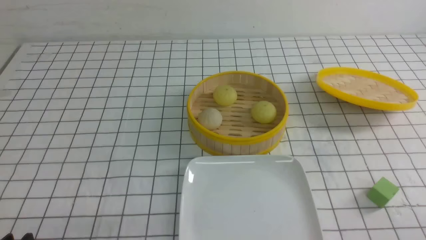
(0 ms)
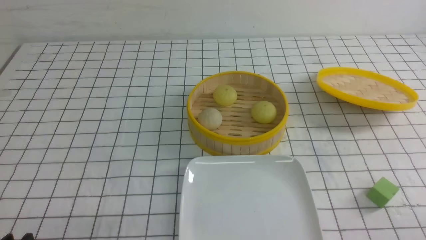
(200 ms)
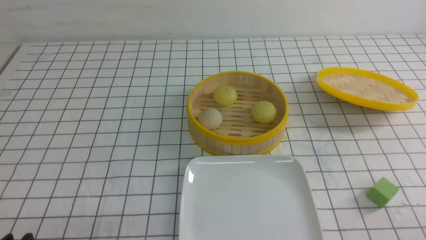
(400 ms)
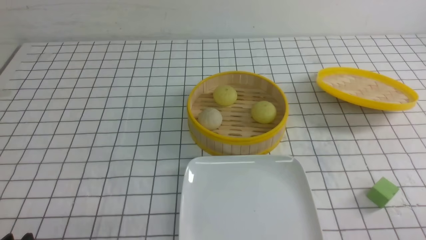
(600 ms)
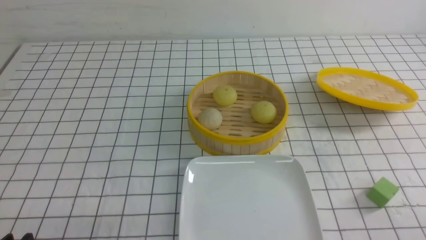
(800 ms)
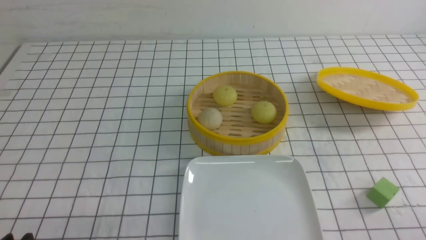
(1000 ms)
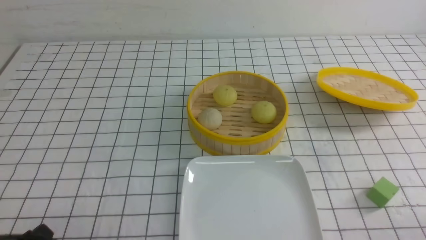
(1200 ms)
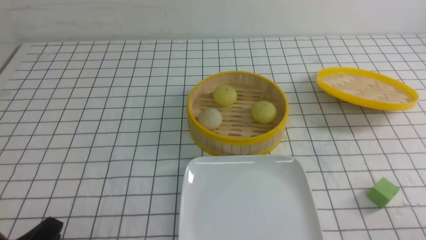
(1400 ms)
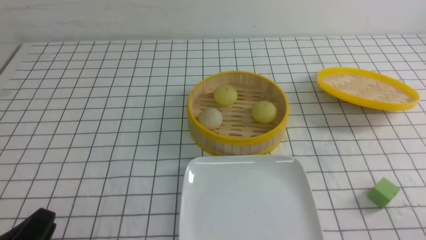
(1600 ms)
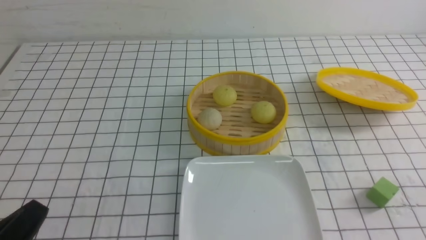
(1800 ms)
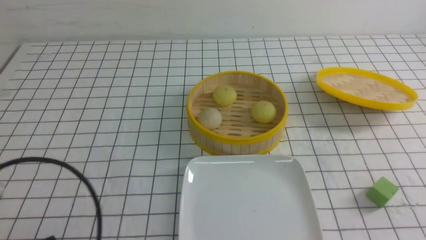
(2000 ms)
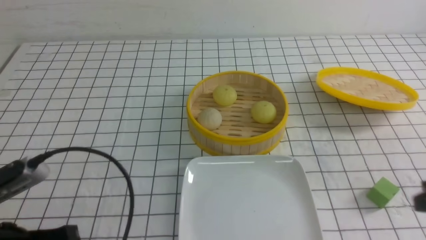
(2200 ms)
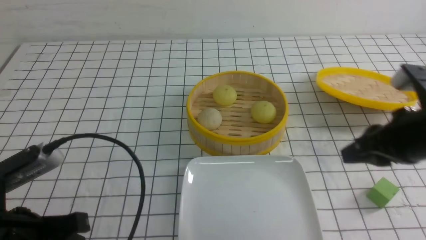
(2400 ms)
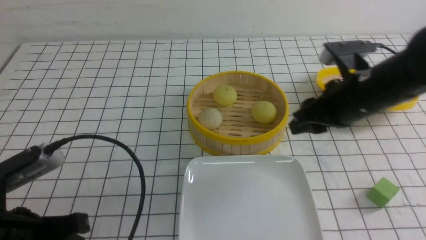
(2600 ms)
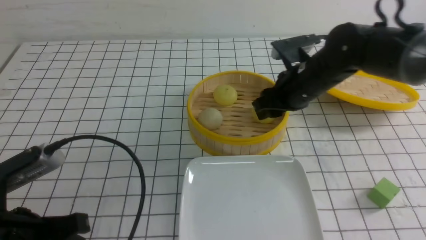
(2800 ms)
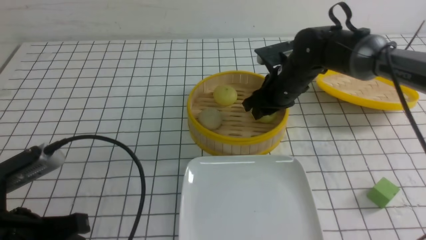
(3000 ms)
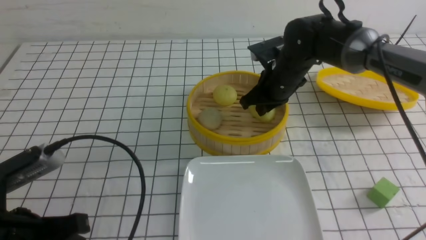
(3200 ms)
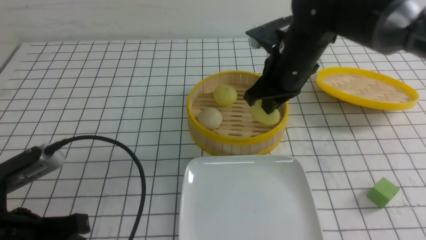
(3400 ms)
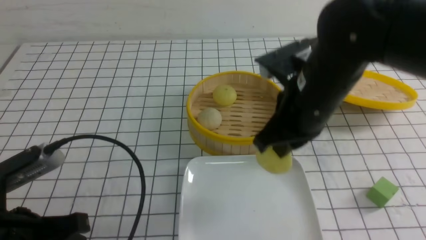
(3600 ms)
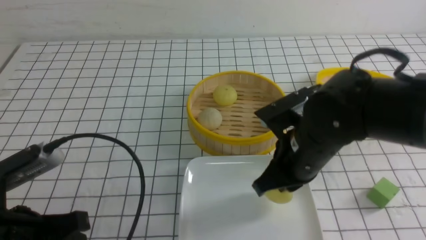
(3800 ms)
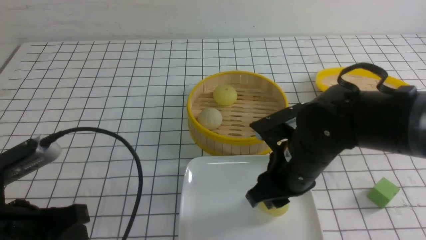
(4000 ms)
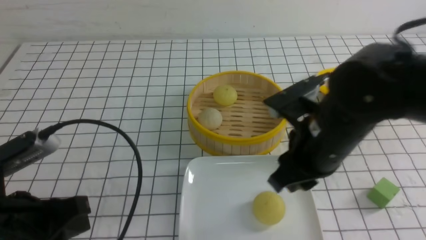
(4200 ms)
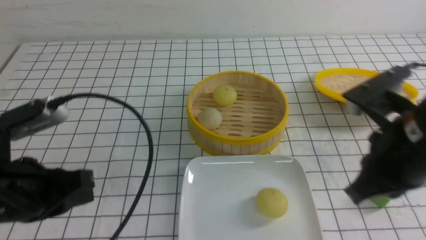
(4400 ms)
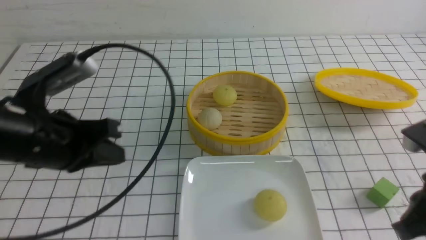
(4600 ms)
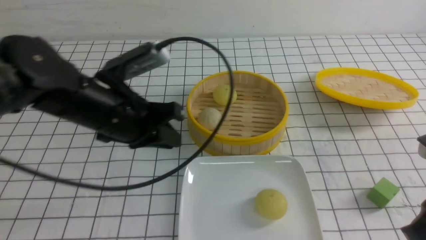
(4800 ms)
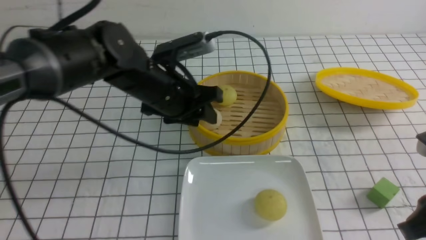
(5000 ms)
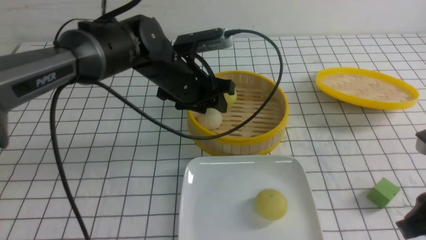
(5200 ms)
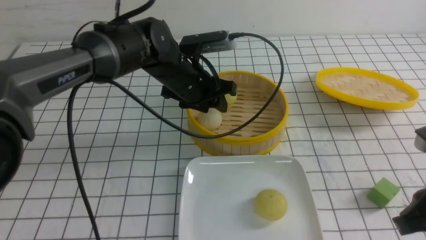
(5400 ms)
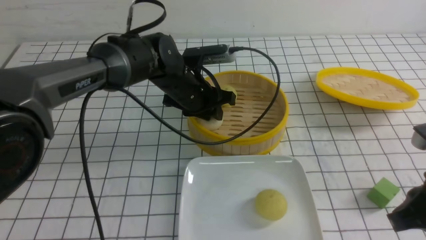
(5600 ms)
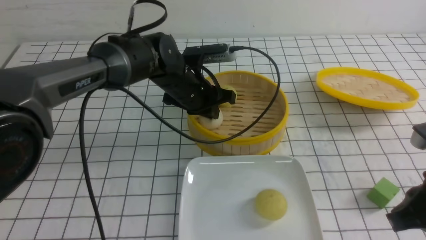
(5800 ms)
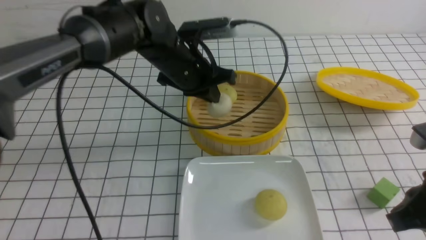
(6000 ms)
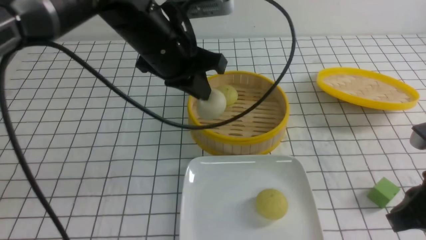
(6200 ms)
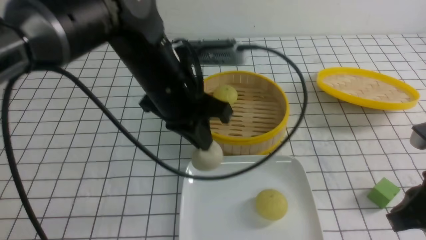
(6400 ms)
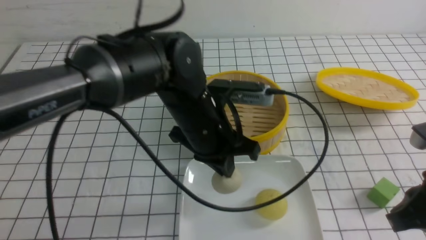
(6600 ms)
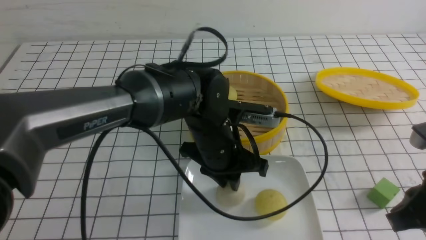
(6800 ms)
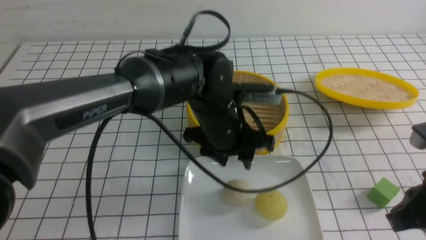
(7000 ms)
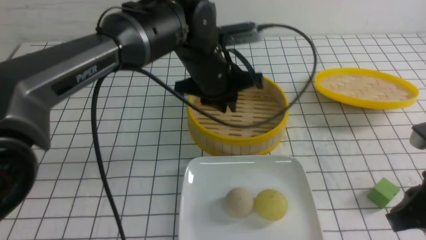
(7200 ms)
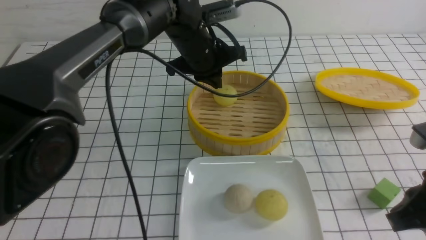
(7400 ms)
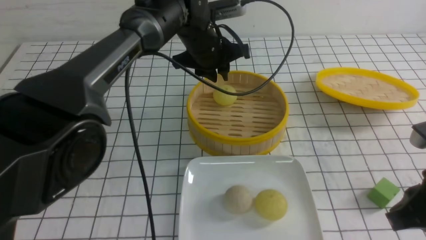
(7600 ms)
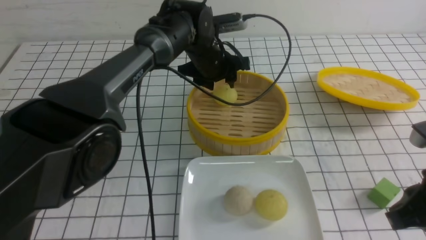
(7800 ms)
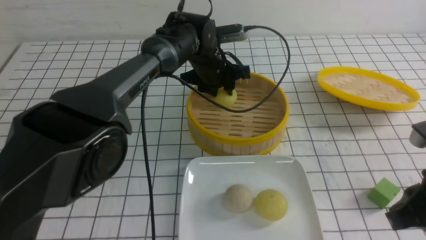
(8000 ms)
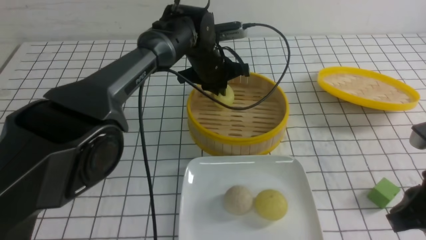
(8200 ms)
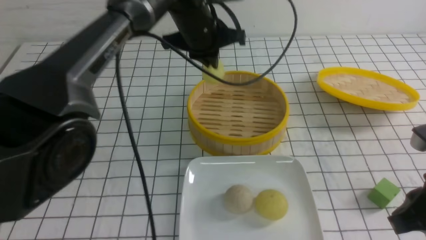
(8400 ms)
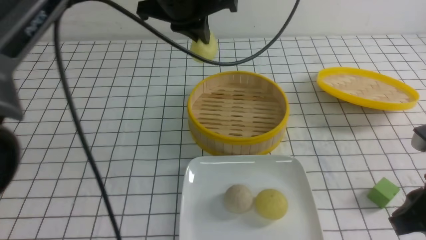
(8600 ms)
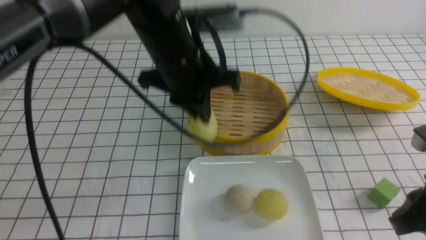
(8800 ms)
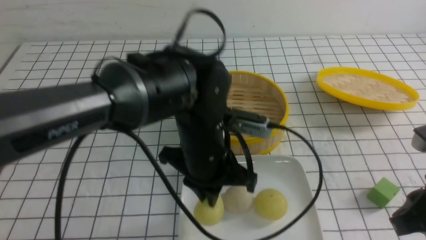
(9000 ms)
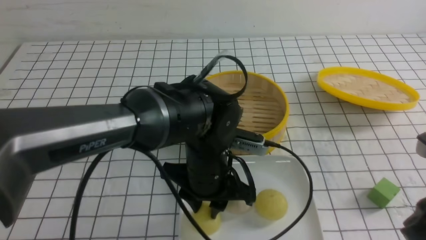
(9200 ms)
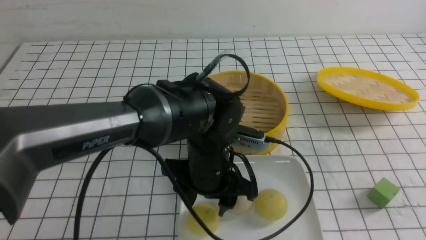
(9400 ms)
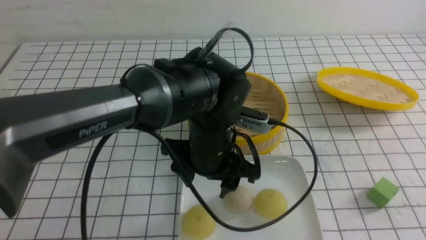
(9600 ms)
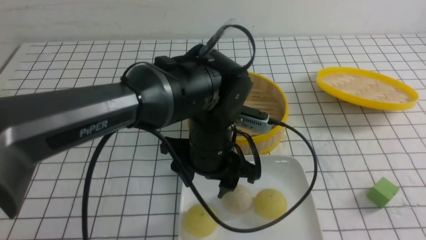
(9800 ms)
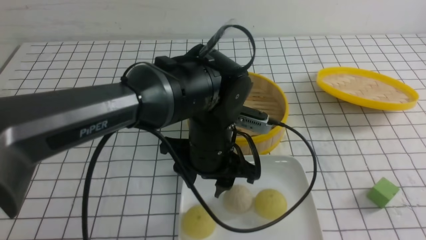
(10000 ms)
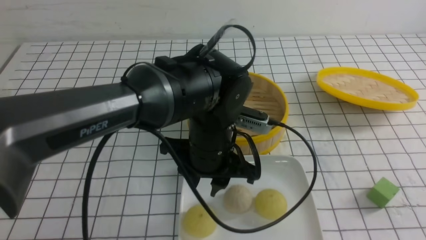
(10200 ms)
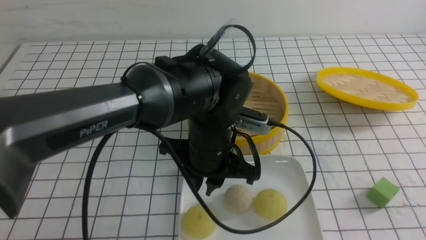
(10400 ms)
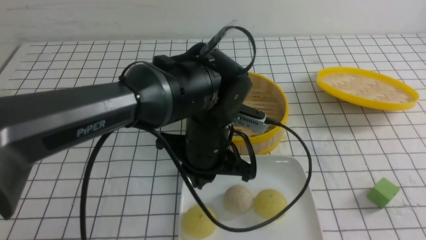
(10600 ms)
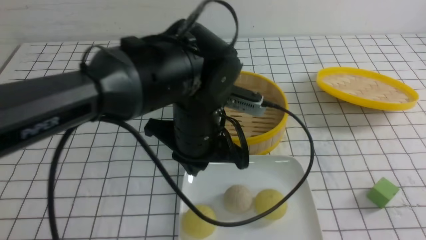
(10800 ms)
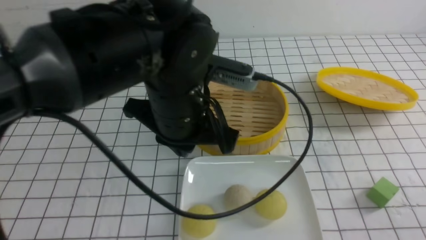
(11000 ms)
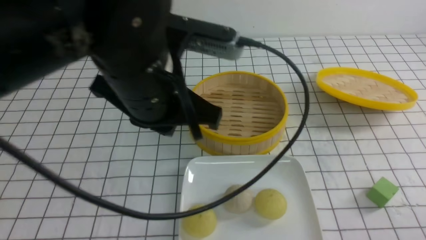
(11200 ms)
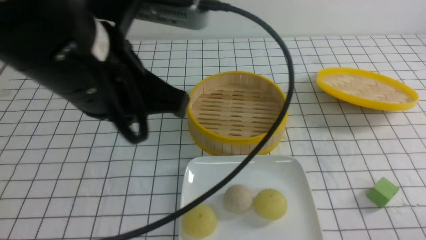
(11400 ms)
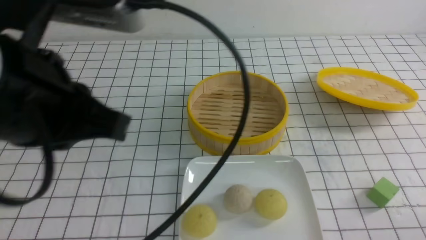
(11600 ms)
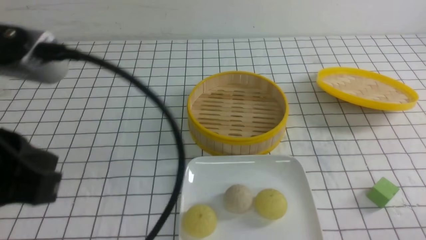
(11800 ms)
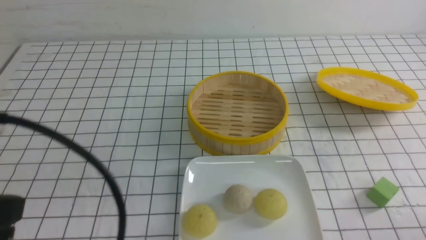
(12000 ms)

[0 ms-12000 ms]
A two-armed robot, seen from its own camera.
Step, 0 ms to 3200 ms: use the right arm to grab the steamed stuffed bun that is closest to it.
Step, 3400 ms to 4200 ms: use the right arm to put the steamed stuffed bun into the plate.
Step, 4400 ms to 6000 ms: use the left arm to grab the steamed stuffed bun that is closest to it.
Step, 6200 ms to 6800 ms: use the left arm to put the steamed stuffed bun into the plate.
Step, 7200 ms to 8200 ms: use the left arm to grab the steamed stuffed bun that is closest to it.
Step, 8400 ms to 9600 ms: use the left arm to put the steamed stuffed bun into the plate.
1600 ms to 3000 ms: The left gripper travels forward by about 5 cm, while the right gripper goes approximately 40 cm forward and to the left, and closes, then reopens.
3000 ms to 4400 ms: The left gripper moves about 5 cm, while the right gripper travels backward by approximately 25 cm, and closes its fingers.
4400 ms to 6000 ms: The left gripper heads forward and to the right, covering some 25 cm, and opens, then closes again. Meanwhile the right gripper heads to the right, covering roughly 5 cm.
6000 ms to 7600 ms: The left gripper shifts roughly 10 cm forward, and opens its fingers.
7600 ms to 9000 ms: The left gripper travels backward by roughly 20 cm.
9000 ms to 10400 ms: The right gripper heads backward and to the right, covering about 15 cm. The left gripper opens, then closes again.
10400 ms to 12000 ms: The right gripper is displaced downward by about 10 cm. The left gripper heads to the left, backward and upward, covering some 30 cm.

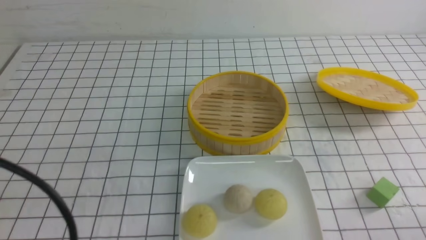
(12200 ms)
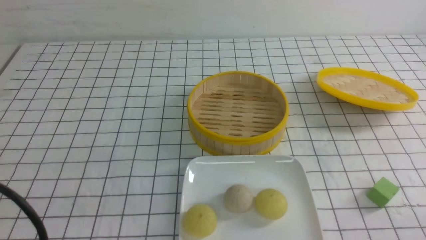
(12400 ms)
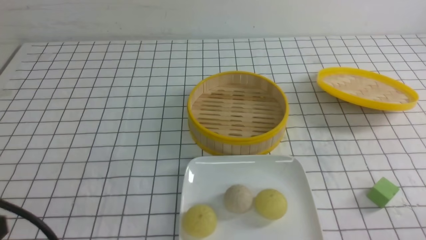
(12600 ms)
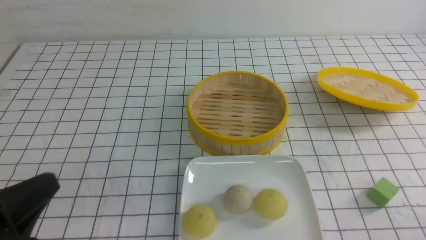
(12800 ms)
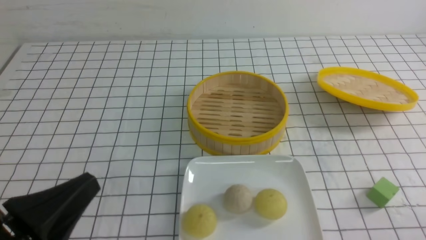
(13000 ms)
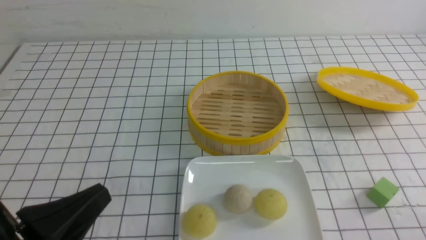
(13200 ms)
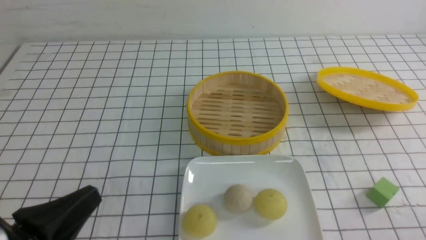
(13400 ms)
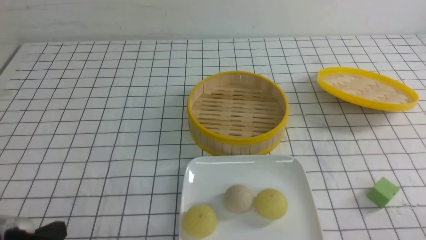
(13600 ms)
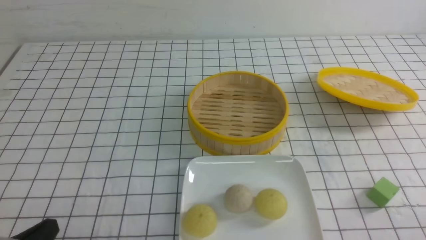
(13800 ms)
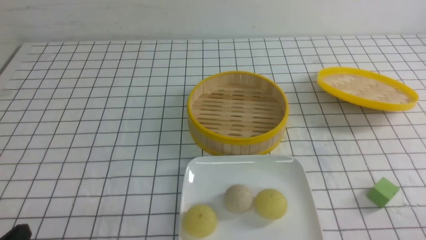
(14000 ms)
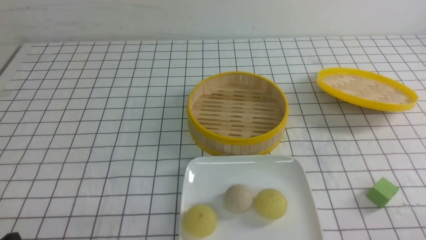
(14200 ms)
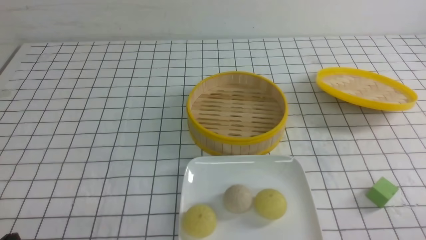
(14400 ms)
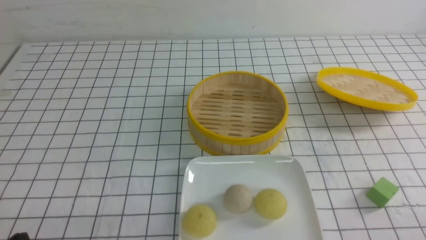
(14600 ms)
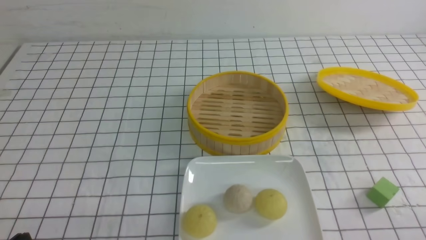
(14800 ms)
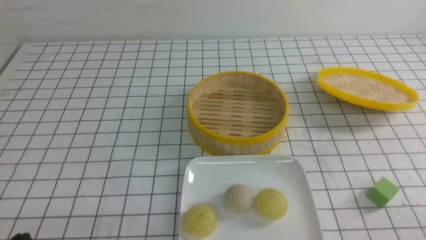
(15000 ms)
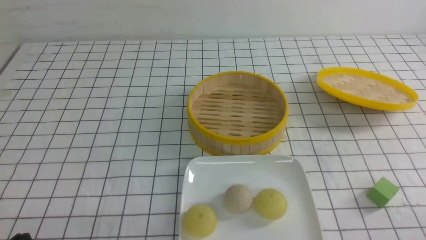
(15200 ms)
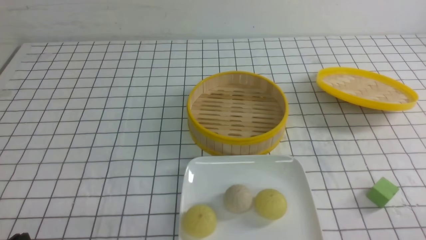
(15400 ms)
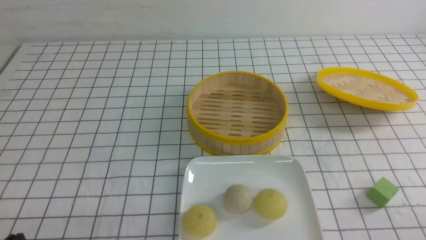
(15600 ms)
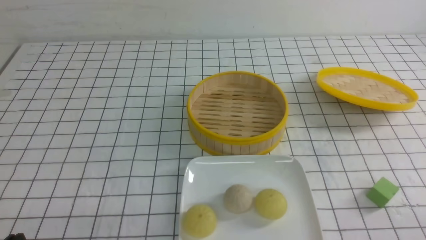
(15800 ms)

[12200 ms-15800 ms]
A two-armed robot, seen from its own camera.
12200 ms to 14000 ms: The left gripper travels downward by approximately 15 cm.
